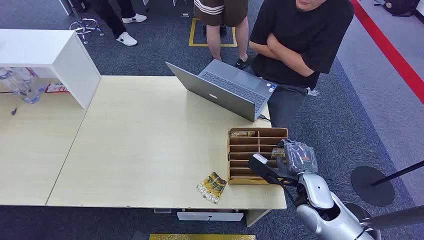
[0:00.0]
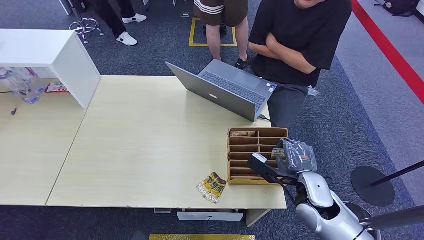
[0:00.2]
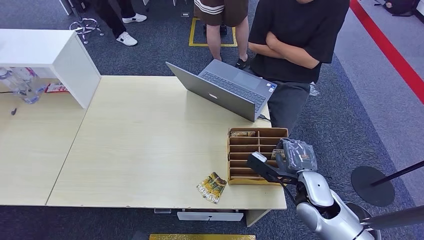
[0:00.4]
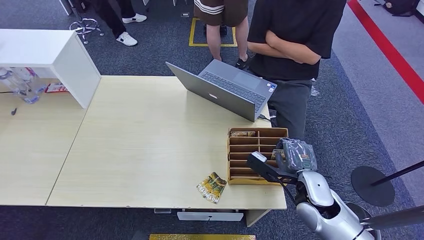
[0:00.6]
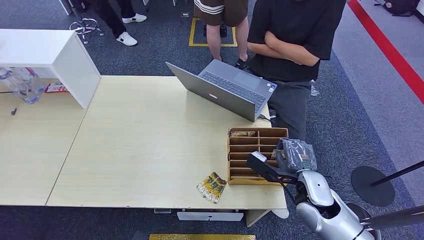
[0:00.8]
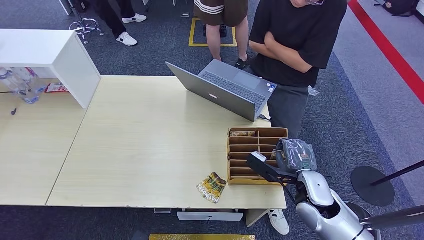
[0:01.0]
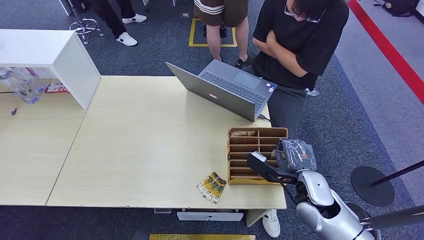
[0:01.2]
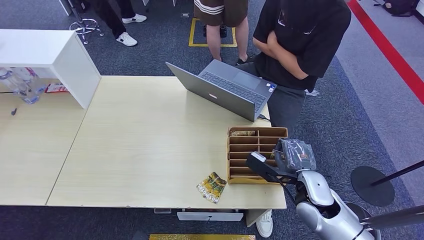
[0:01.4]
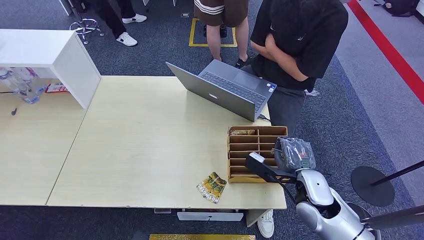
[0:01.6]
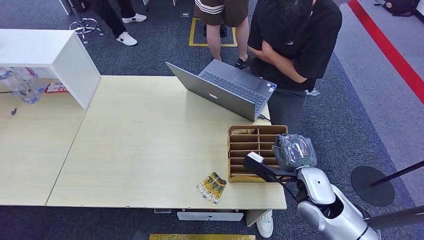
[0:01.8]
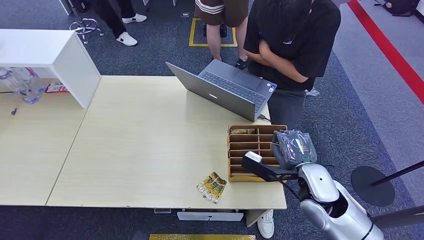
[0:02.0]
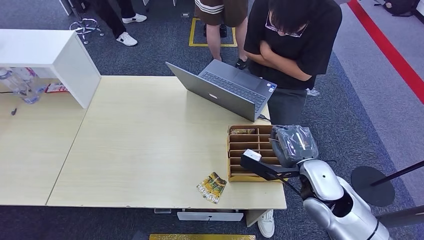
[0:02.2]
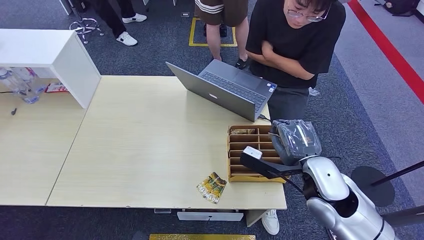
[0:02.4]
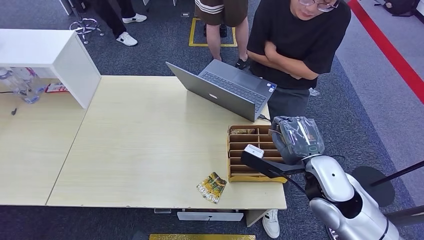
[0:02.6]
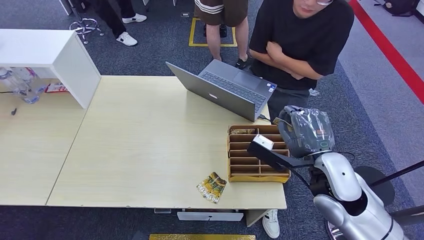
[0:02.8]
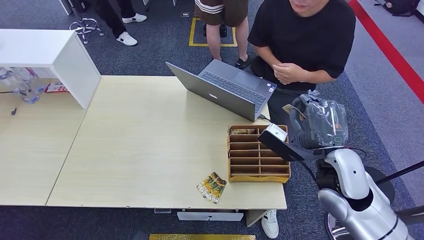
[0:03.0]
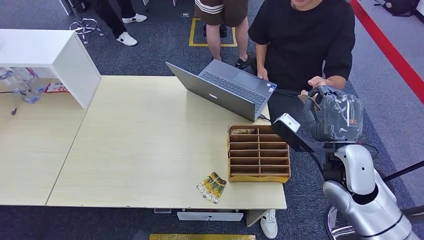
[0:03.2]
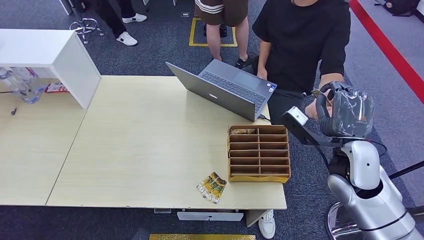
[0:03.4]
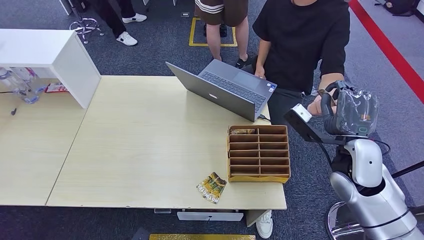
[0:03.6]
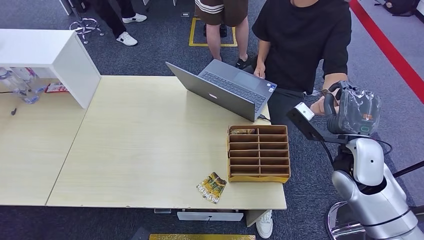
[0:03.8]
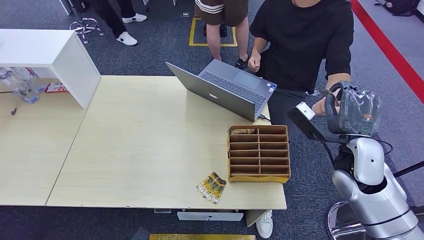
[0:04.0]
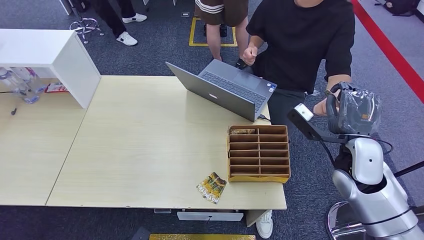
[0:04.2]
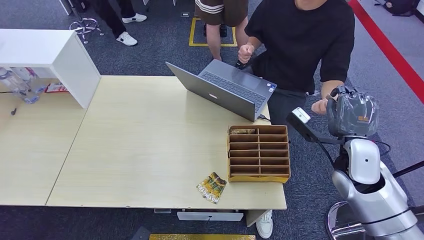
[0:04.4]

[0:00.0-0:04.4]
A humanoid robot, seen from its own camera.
Task of the whole recording: Pick up the card and hand it over to the target person.
Step, 0:00.0 to 0:02.2: Pick up the key card from the card box.
Step, 0:02.6 to 0:04.4: Hand the key card to the target.
0:01.4 to 0:03.0: The right hand goes approximately 10 cm upward and to the right.
0:03.0 to 0:04.4: The right hand shifts by approximately 5 cm.
